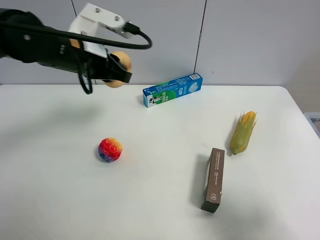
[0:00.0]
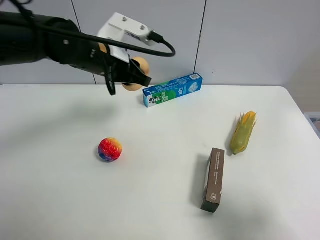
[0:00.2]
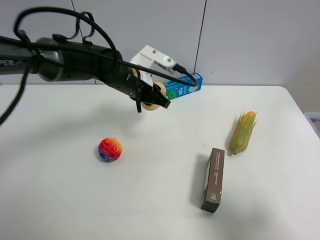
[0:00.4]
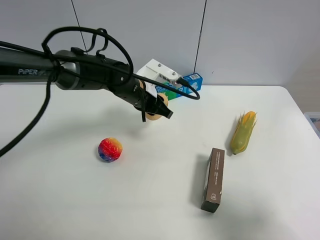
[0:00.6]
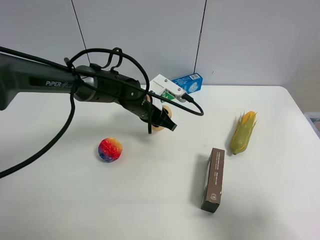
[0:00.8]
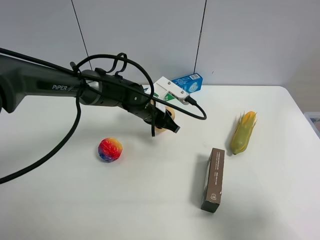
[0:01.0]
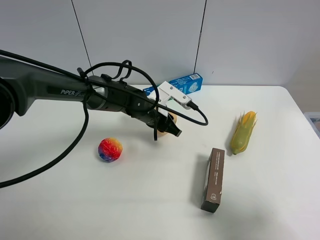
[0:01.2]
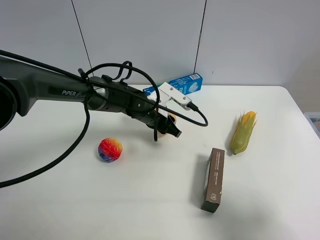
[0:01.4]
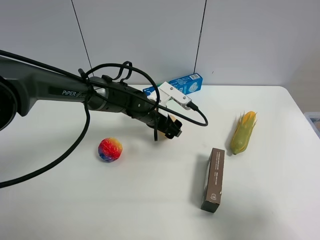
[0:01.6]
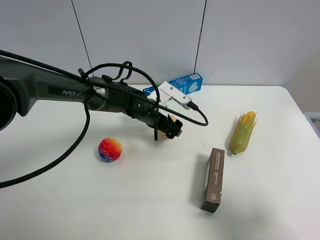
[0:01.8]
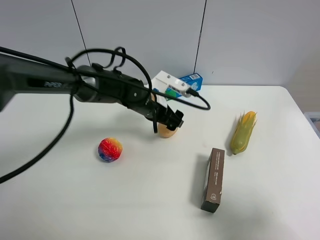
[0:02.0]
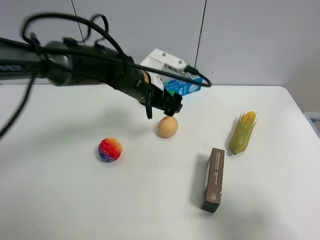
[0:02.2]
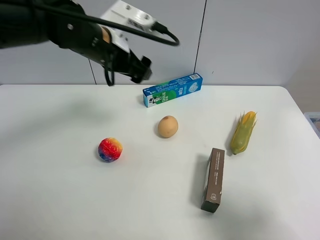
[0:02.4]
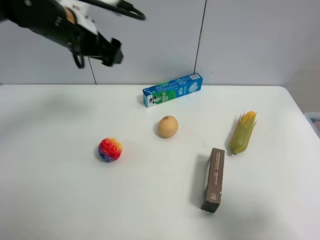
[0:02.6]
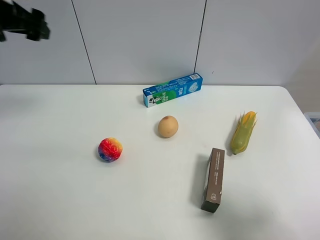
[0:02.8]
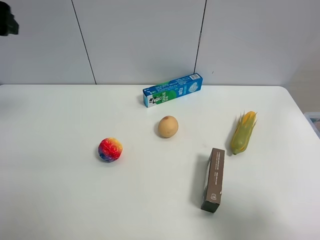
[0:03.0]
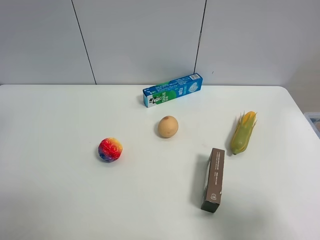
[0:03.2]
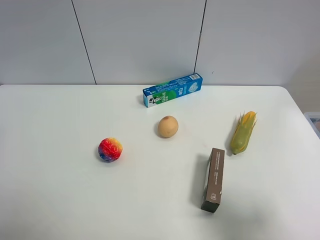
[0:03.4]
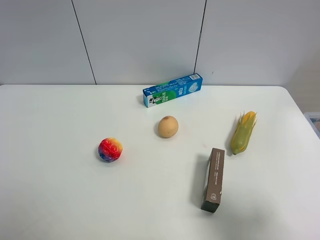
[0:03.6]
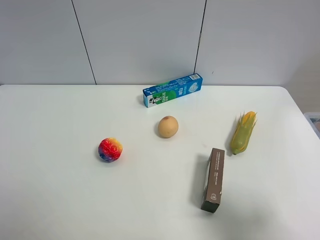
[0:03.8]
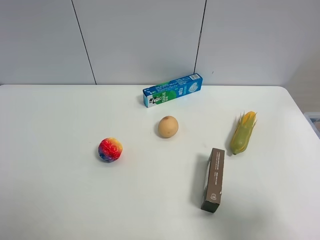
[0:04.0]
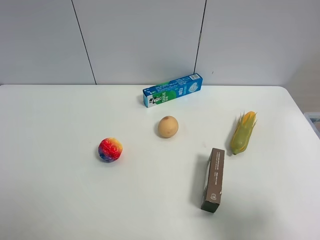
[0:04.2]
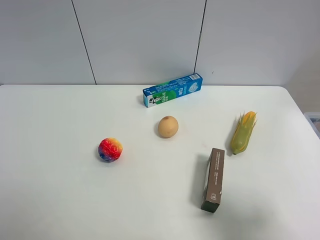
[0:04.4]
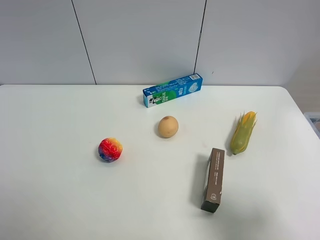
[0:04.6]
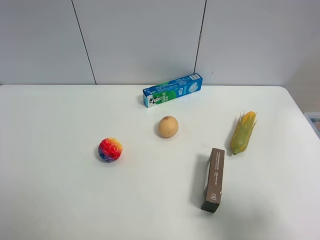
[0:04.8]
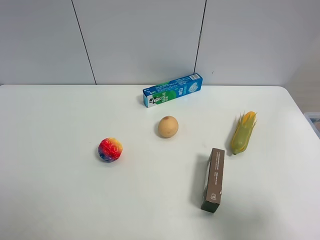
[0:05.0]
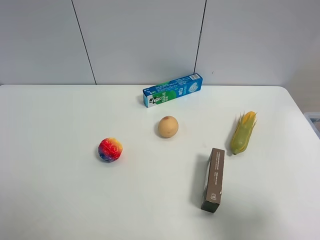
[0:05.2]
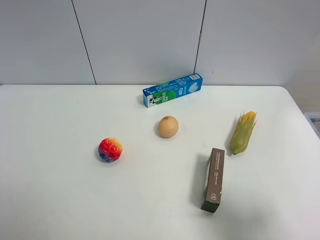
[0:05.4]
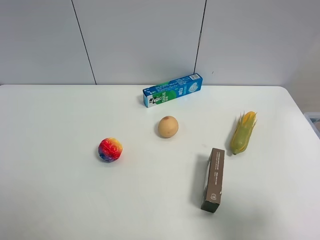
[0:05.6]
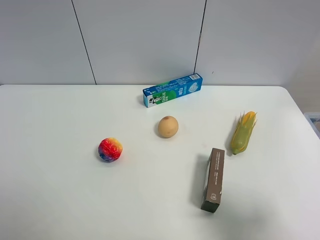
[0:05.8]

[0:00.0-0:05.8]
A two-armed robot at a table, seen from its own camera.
Task of the whole recording: the gripper move the object.
Step, 0:00.0 to 0:01.6: Place the egg yolk pastry on the table with the left gripper.
0:00.0 to 0:01.4: The left gripper travels downward and to the right by roughly 20 cm, and opens.
0:01.4 to 0:02.8: The left gripper moves upward and to the left, some 40 cm, and opens its fingers.
0:02.8 to 0:04.4: The left gripper goes some 35 cm backward.
0:04.4 to 0:05.8: Both grippers stay put.

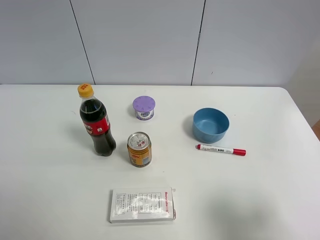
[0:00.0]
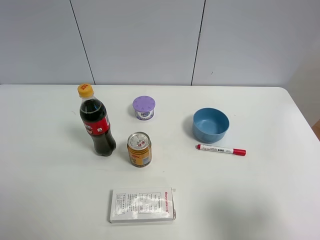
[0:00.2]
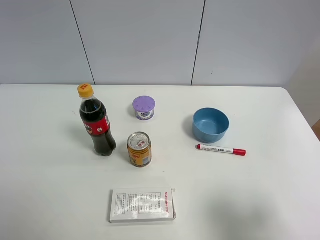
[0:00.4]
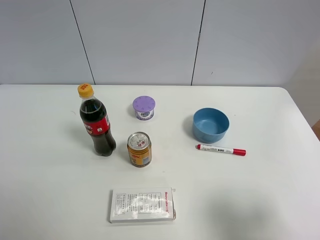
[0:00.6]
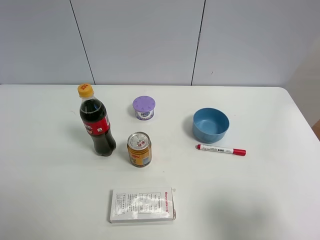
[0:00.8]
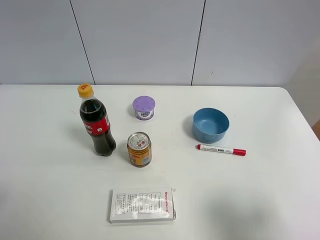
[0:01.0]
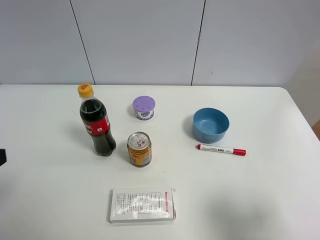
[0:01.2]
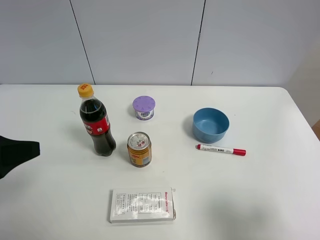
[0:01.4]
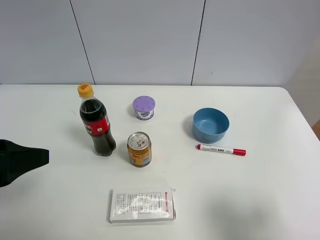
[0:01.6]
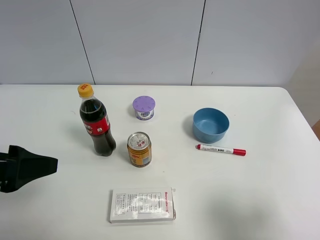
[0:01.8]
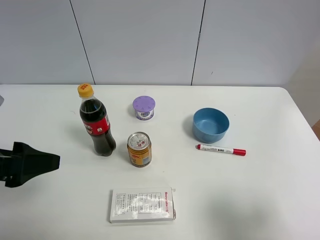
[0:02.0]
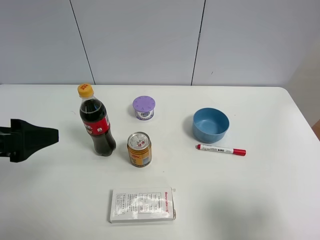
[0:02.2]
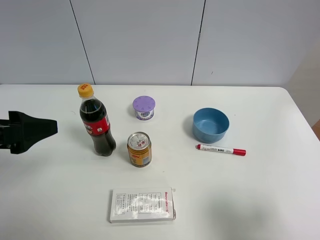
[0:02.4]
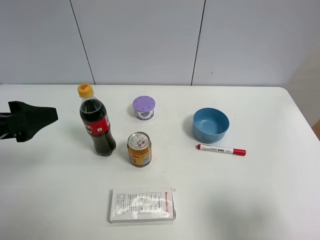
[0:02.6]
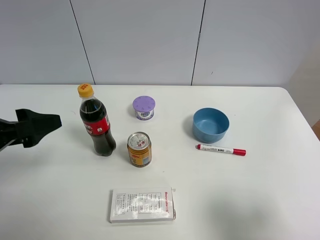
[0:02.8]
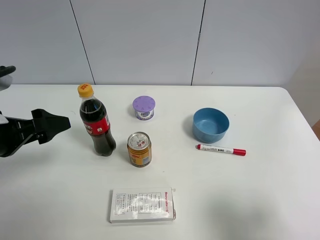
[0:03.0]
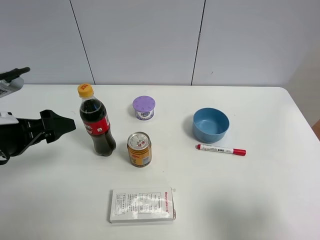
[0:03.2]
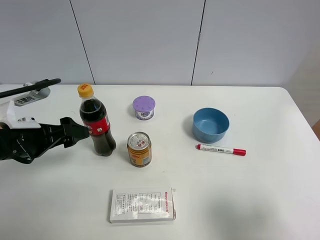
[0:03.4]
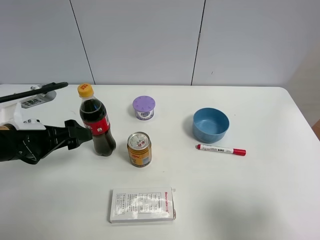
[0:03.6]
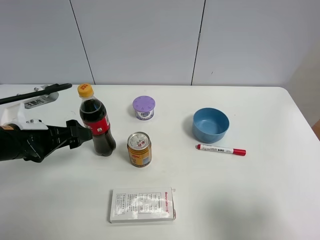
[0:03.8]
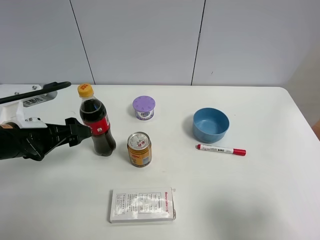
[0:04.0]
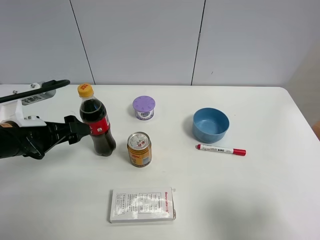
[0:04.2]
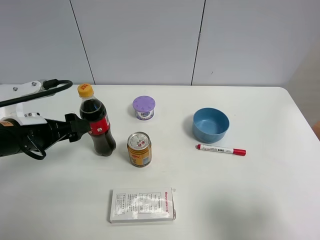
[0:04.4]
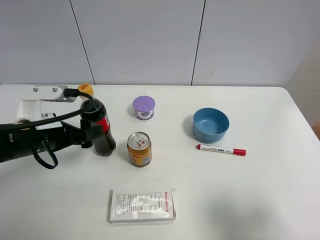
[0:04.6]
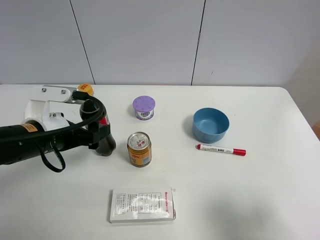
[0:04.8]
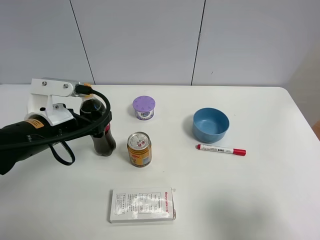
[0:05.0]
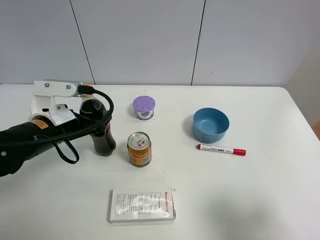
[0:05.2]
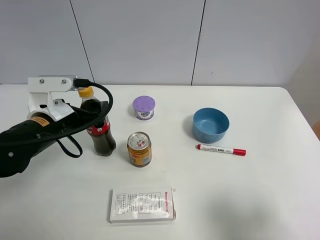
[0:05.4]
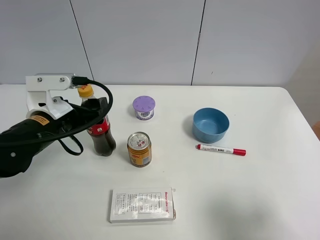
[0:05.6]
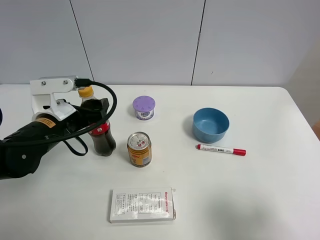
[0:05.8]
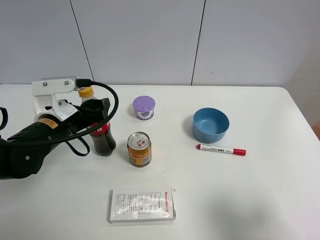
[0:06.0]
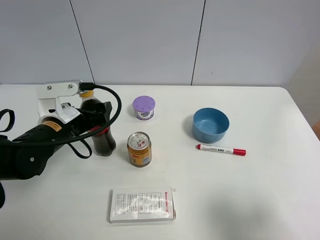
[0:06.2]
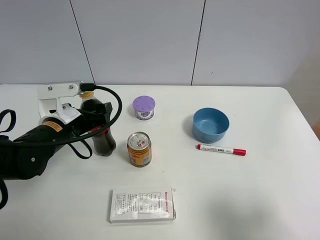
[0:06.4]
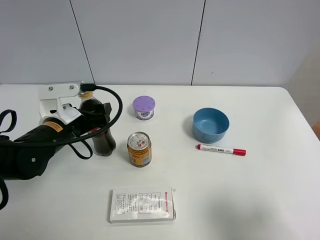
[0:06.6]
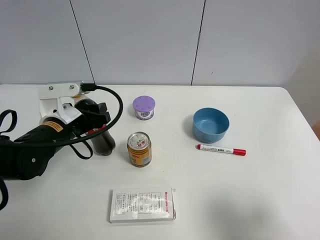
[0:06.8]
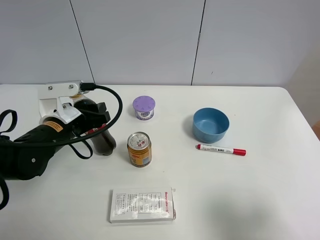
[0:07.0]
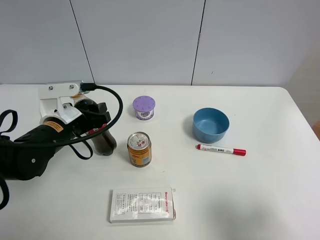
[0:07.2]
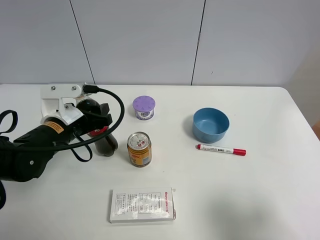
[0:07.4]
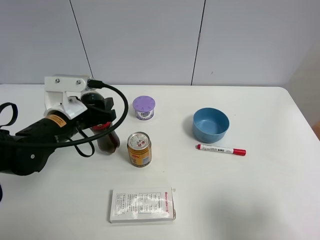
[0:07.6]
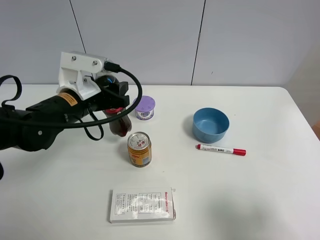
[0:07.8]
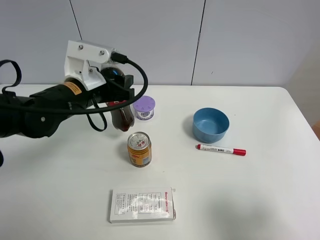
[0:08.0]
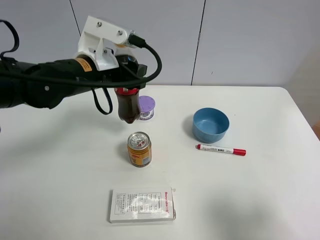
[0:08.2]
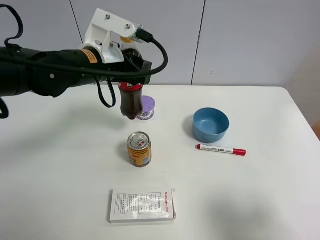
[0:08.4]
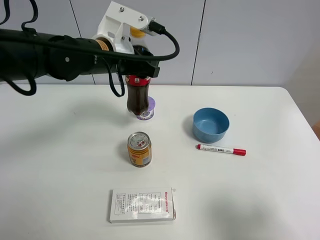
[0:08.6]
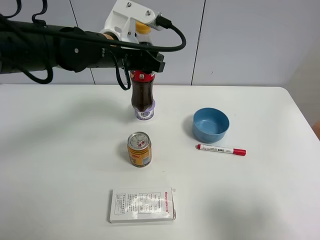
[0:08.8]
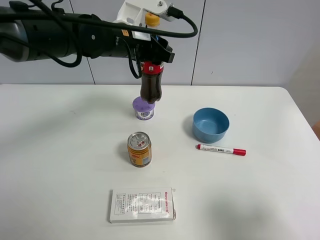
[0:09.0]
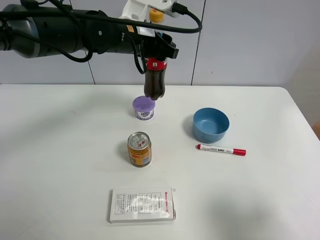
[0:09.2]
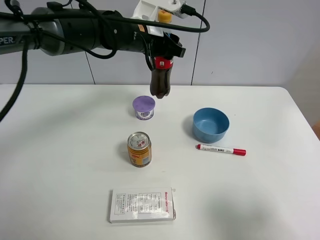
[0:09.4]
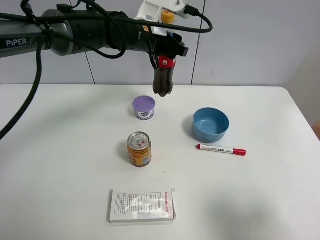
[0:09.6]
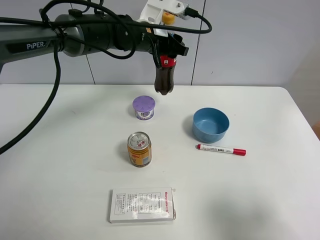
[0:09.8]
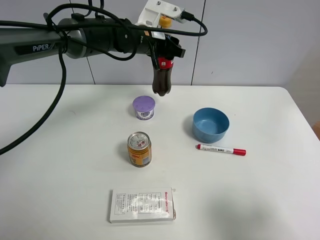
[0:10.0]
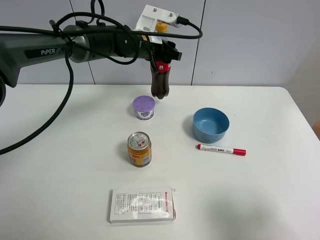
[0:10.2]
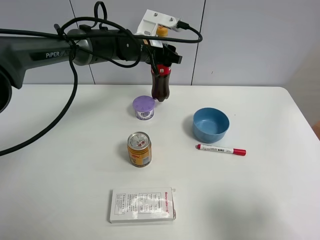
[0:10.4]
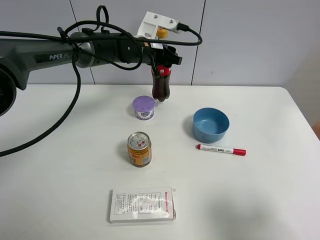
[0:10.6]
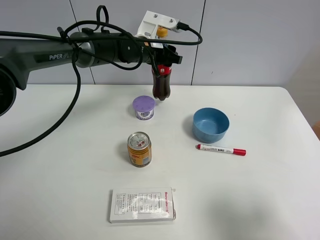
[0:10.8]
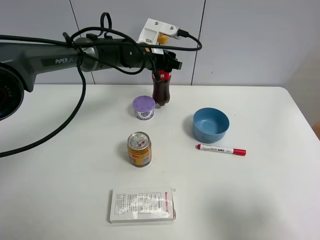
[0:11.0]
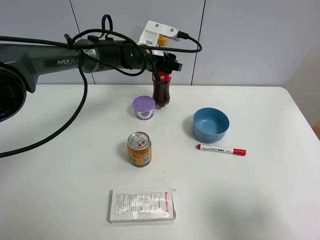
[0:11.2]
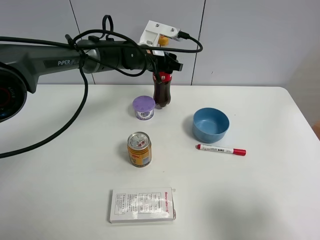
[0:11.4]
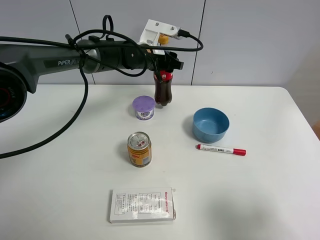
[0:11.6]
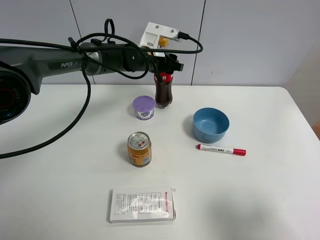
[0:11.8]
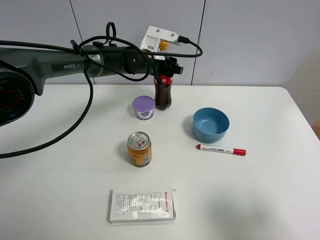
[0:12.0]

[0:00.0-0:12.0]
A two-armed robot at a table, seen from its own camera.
Task of the whole recording: the gripper move the object.
Step, 0:00.0 to 0:06.8: Grasp the coke with the left gripper.
0:00.0 to 0:01.6: The left gripper heads forward, covering roughly 10 cm.
0:01.6 to 0:03.0: The left gripper is displaced forward by roughly 5 cm.
0:03.0 to 0:04.4: The left gripper ends up some 5 cm from where it was.
0:04.4 to 0:06.0: The left gripper shifts by approximately 5 cm.
0:06.0 to 0:07.6: The left gripper closes.
0:07.6 to 0:09.0: The left gripper heads forward, to the right and upward, covering about 20 cm.
0:09.0 to 0:10.4: The left gripper goes roughly 10 cm forward and downward.
0:10.4 to 0:12.0: There are only small adjustments of the grippers.

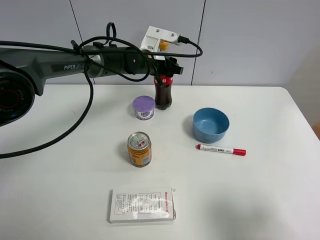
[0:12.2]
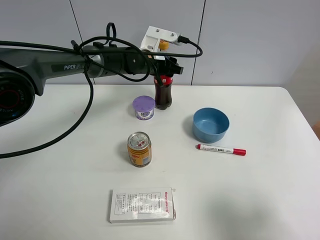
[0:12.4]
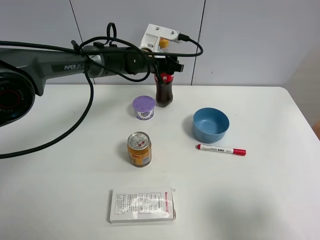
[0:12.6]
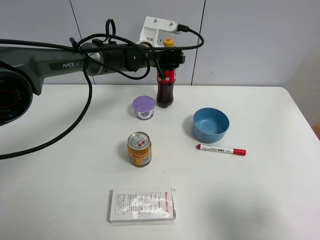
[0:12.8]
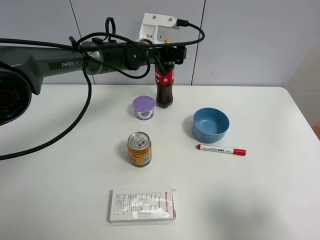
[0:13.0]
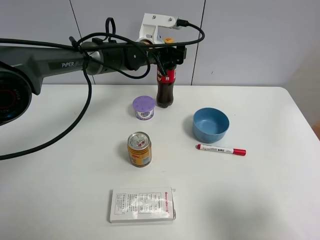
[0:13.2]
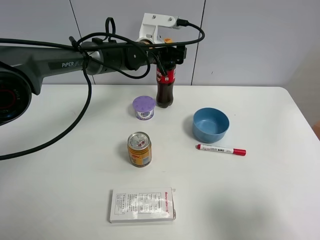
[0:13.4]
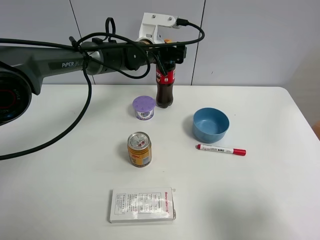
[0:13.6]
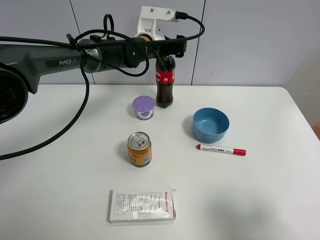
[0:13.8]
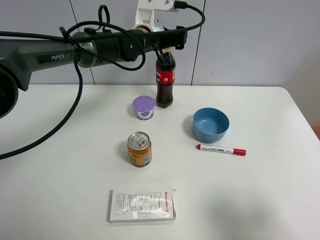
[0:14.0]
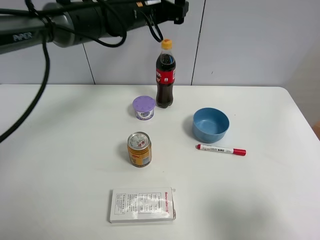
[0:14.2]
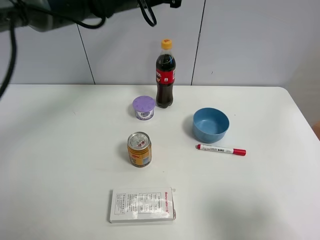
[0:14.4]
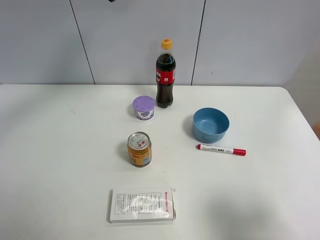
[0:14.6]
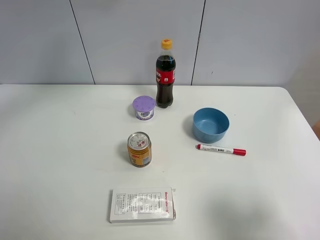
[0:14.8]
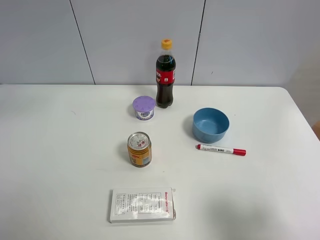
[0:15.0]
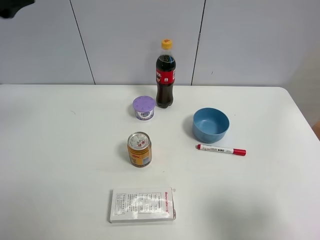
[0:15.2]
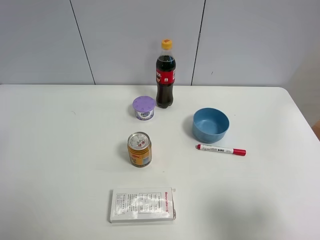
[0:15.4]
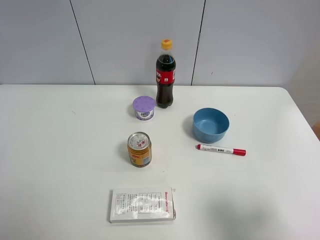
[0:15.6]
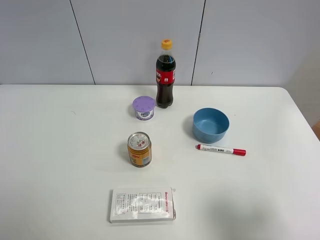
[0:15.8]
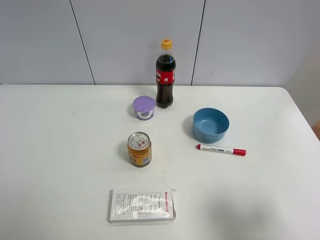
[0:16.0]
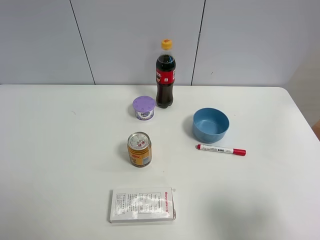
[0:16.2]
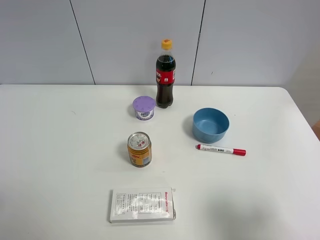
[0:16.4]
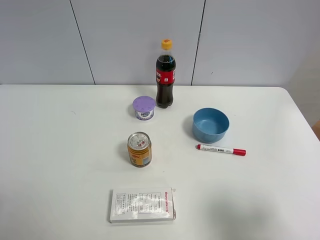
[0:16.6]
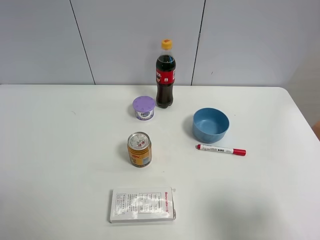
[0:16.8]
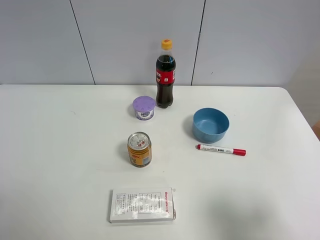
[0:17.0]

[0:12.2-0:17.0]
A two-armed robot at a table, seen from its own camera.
Task of the whole recording: the gripper move the object.
0:12.2 to 0:13.8: The left gripper opens.
0:13.8 to 0:15.4: The left gripper shifts about 50 cm backward, to the left and upward.
